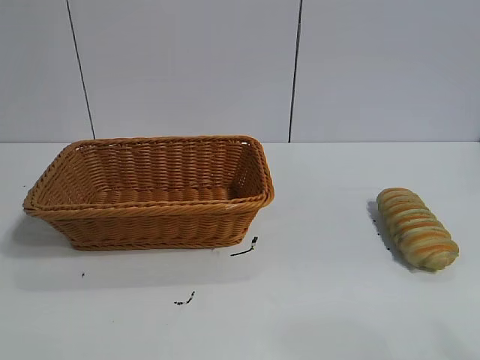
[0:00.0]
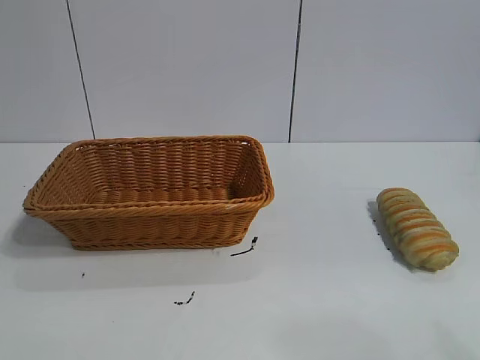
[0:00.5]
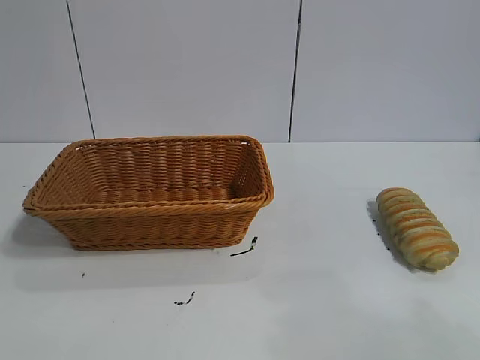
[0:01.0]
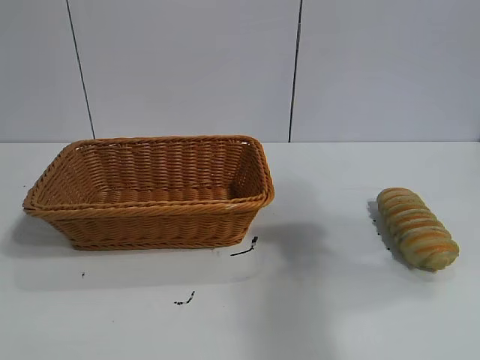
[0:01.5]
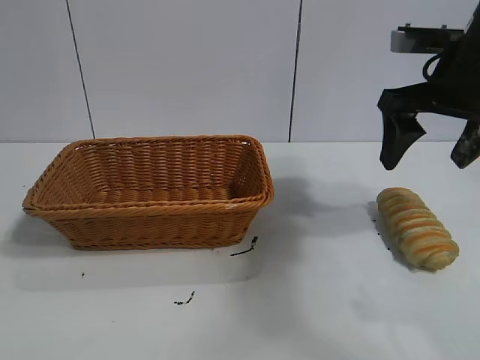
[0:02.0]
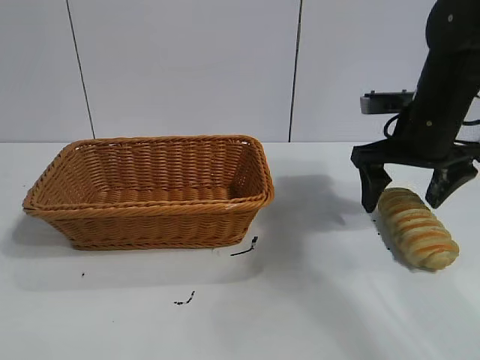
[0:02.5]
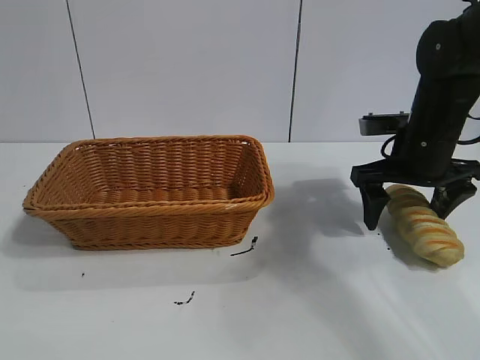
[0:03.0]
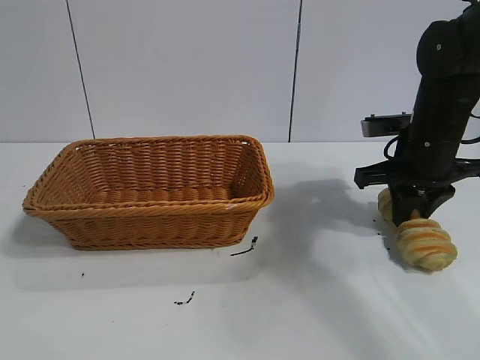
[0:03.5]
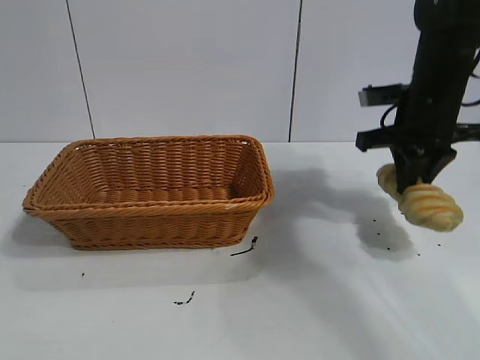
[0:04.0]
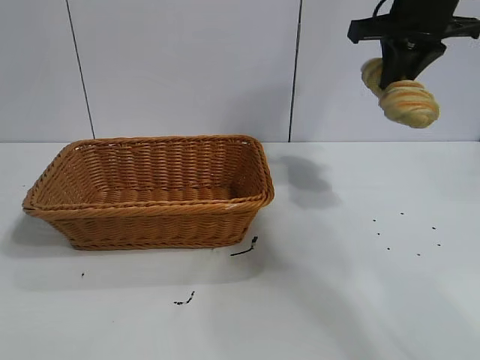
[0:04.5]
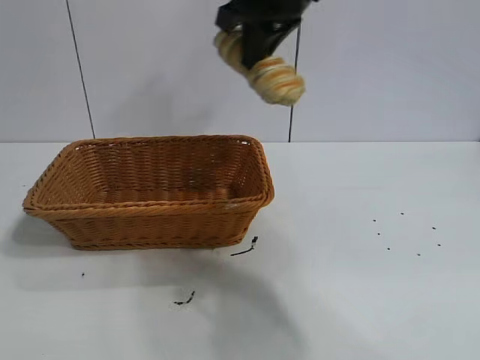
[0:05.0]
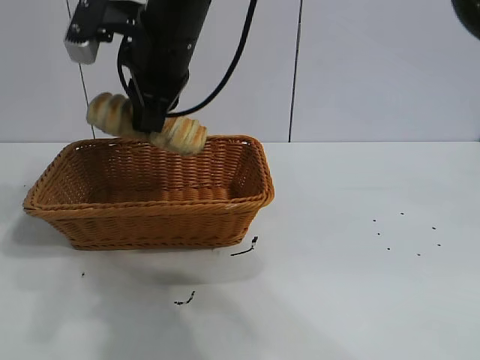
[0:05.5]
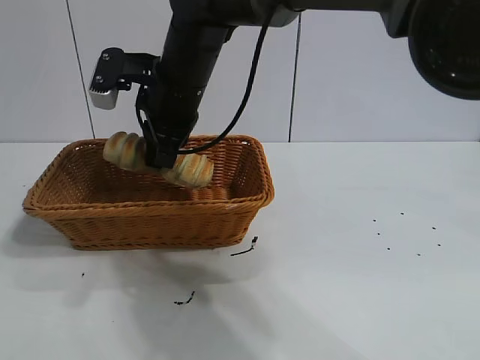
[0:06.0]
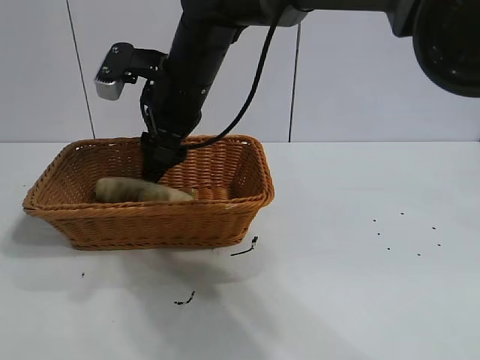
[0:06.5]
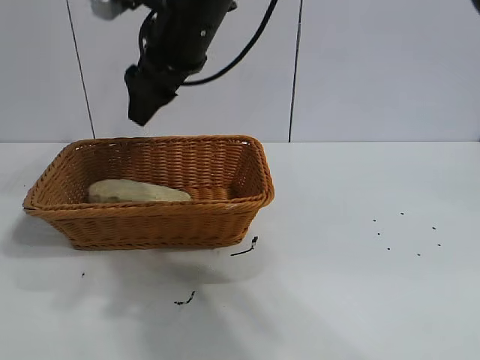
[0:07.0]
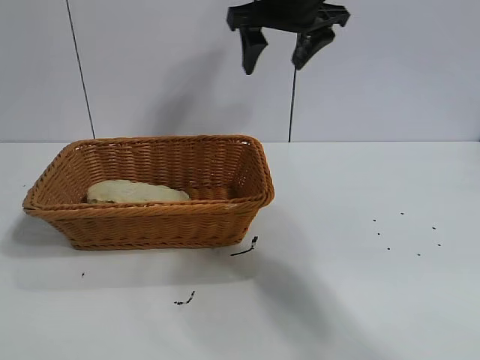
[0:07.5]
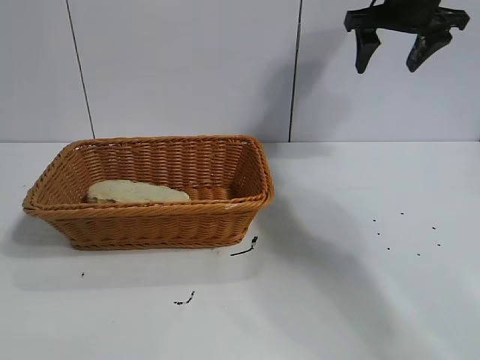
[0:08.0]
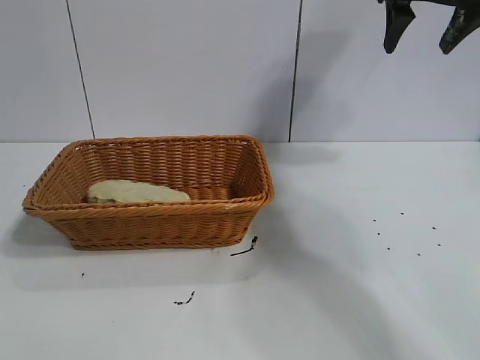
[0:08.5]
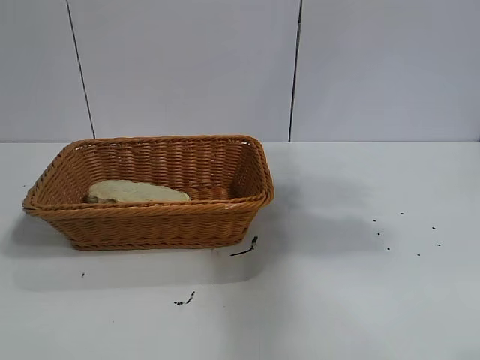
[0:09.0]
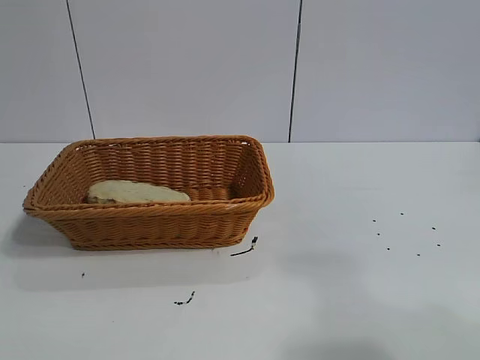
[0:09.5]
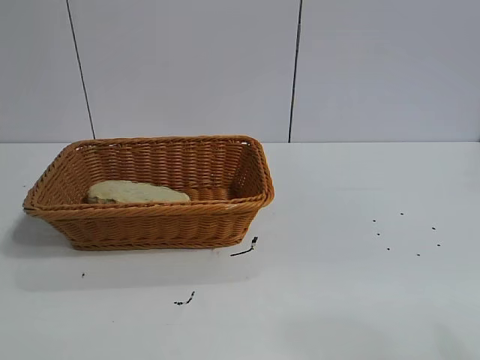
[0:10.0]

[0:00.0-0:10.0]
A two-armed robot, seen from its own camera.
Task of the whole recording: pick up the long bread and put it into the basket.
Step, 0:02.0 to 0:03.5: Grasp the long bread with right gripper.
Step, 0:04.0 to 0:06.5: Place the long bread in the basket with right gripper.
